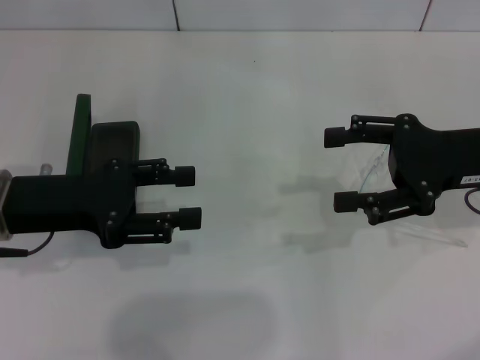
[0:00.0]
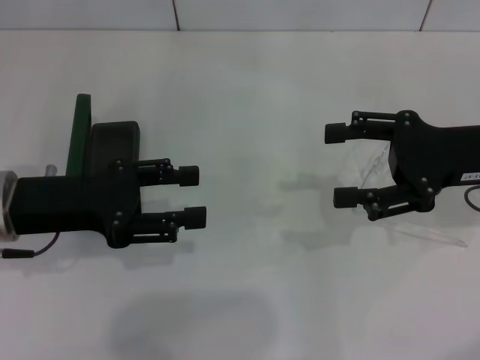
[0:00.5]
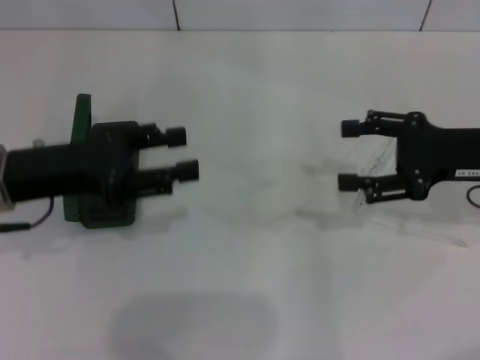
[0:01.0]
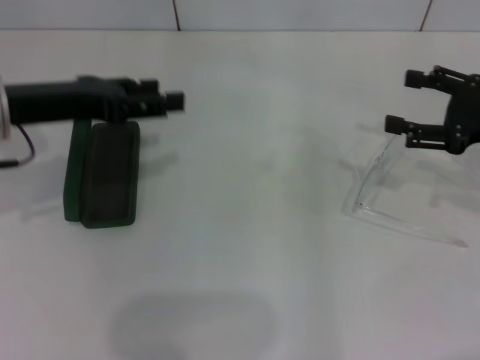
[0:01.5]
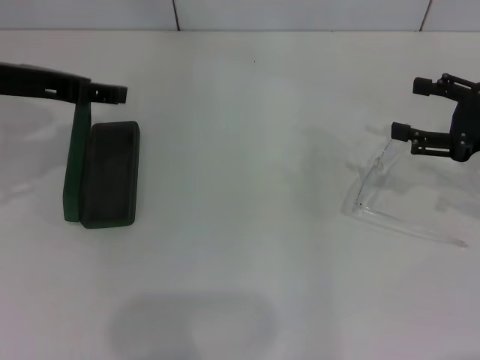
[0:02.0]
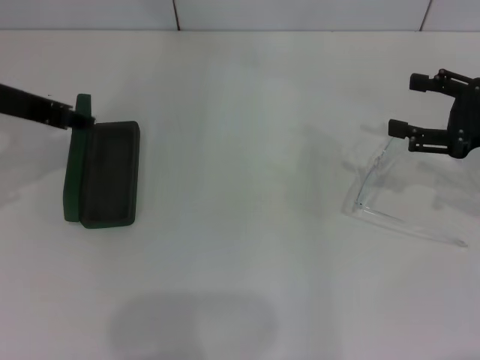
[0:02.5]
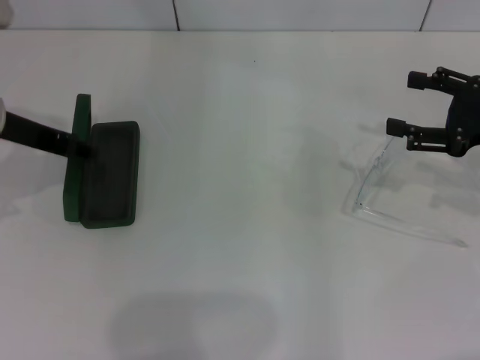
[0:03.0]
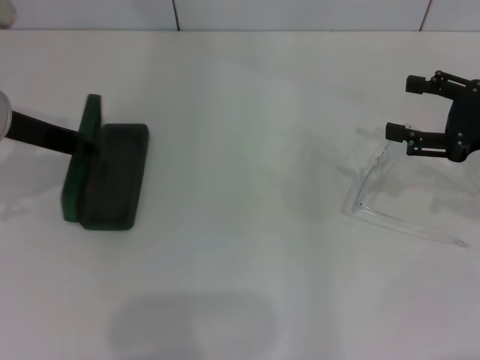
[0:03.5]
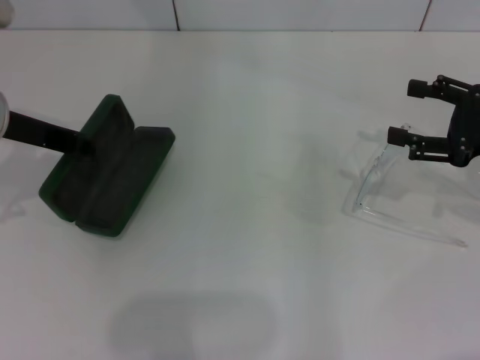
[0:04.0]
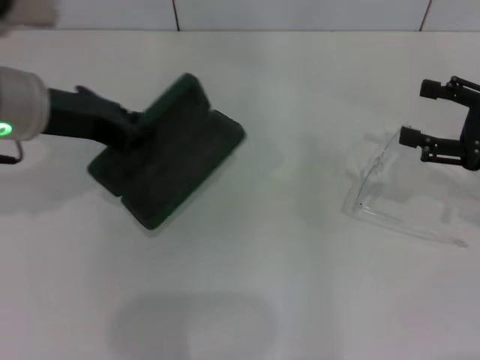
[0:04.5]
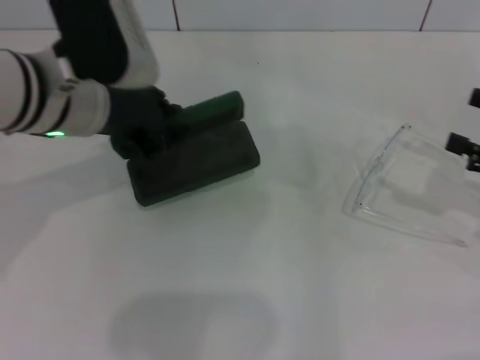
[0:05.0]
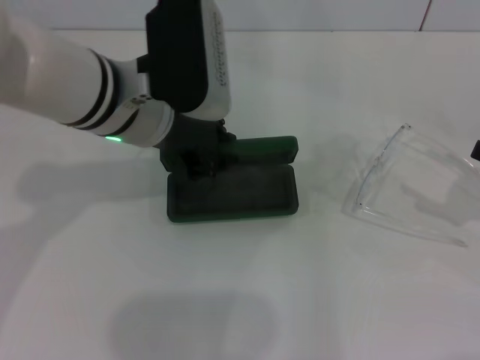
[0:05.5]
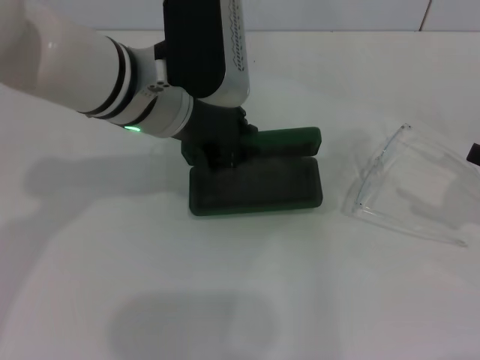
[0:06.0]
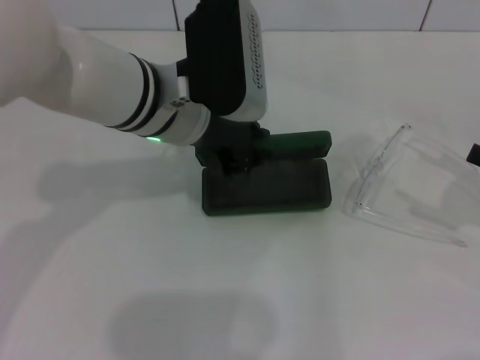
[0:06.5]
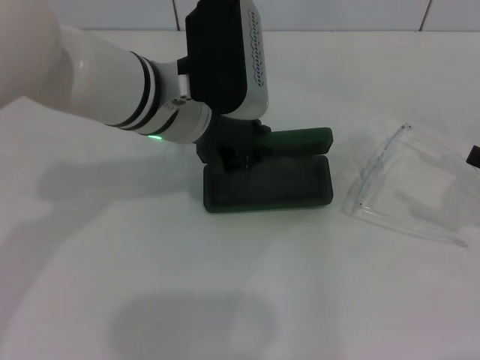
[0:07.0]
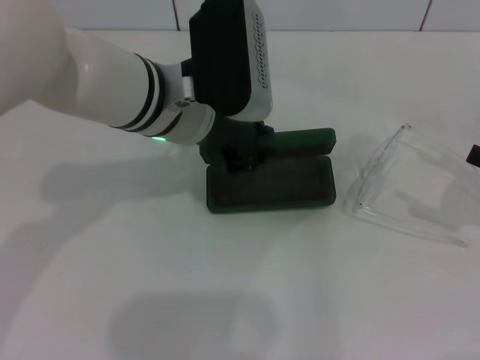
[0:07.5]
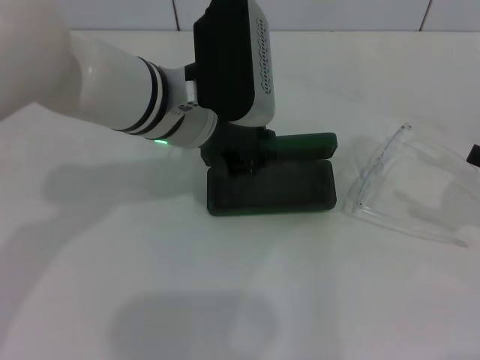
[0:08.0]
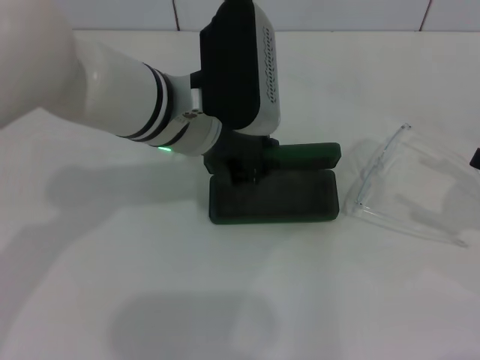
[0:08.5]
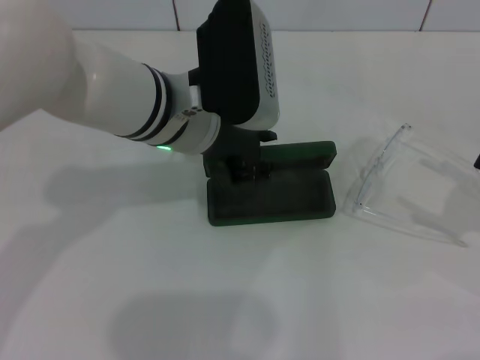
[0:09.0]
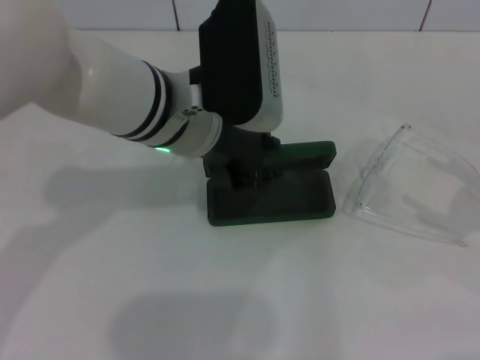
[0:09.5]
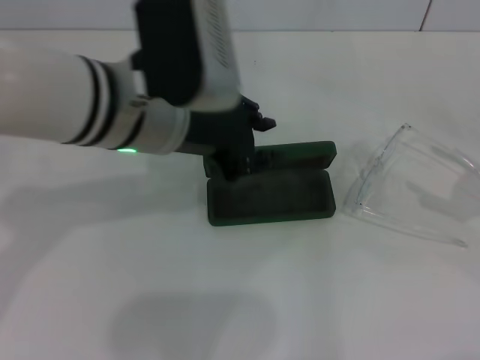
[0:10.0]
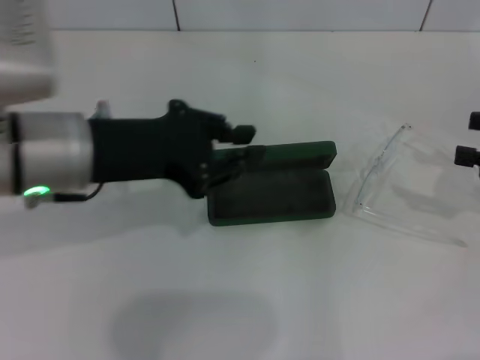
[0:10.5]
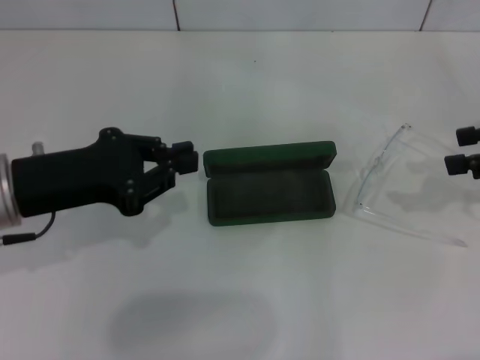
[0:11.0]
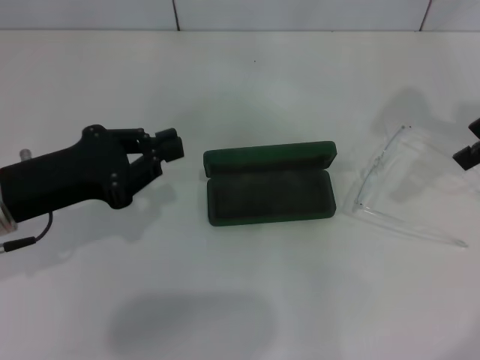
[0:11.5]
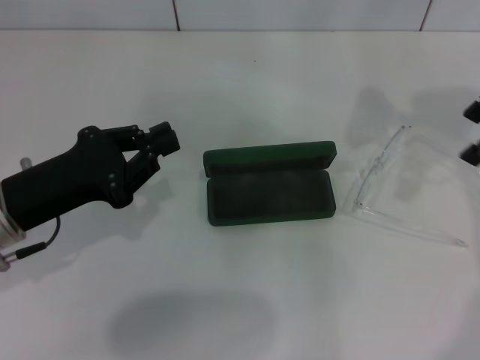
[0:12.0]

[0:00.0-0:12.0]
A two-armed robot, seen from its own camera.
Step, 0:00.0 to 0:03.0: Grab the glasses case with your left hand.
Step, 0:03.5 to 0:08.5: Place the glasses case in the center of the table with your left hand.
0:00.0 to 0:02.0: The left gripper moves upward and forward, approximately 10 cm. The right gripper heads to the right, covering some 5 cm.
0:02.0 to 0:04.0: The left gripper closes.
0:04.0 to 0:06.0: The left gripper is displaced to the right by approximately 15 cm. Meanwhile the right gripper travels backward and to the right by about 10 cm.
0:06.0 to 0:08.0: The grippers stay close to where they were, moving slightly.
0:08.0 to 0:10.0: The left gripper ends up about 5 cm from where it was.
0:10.0 to 0:12.0: The left gripper travels to the left and downward by roughly 20 cm, and closes. Meanwhile the right gripper travels upward, to the left and forward by some 25 cm.

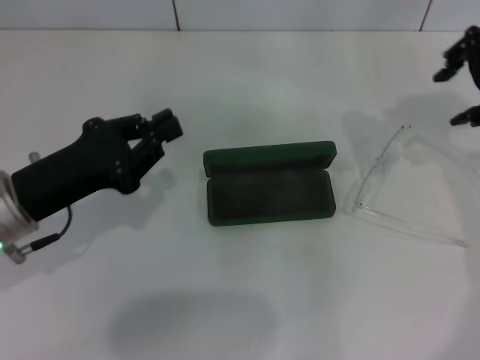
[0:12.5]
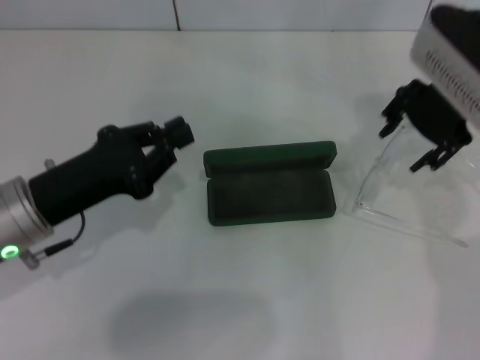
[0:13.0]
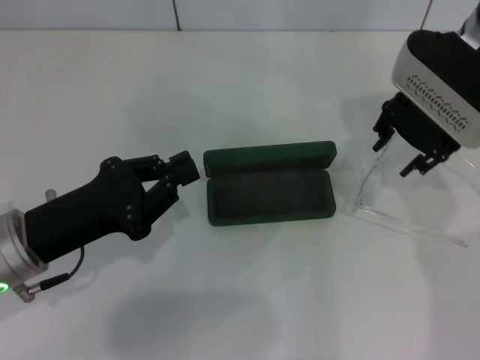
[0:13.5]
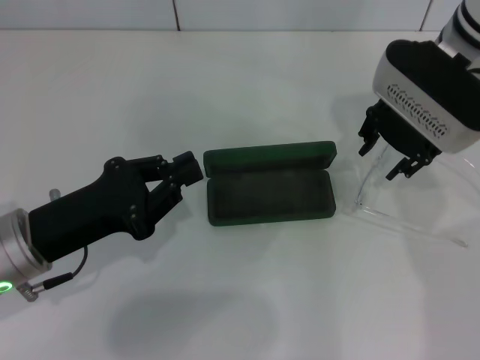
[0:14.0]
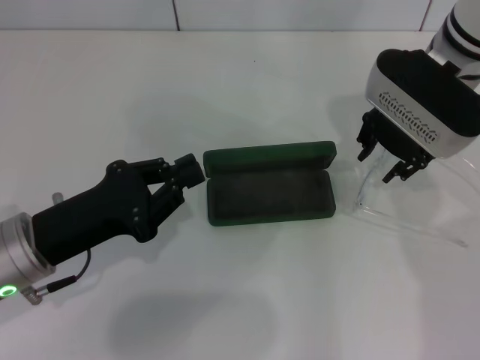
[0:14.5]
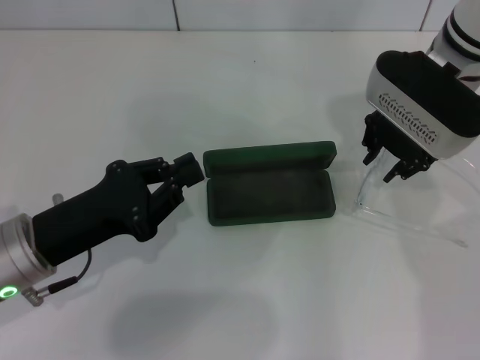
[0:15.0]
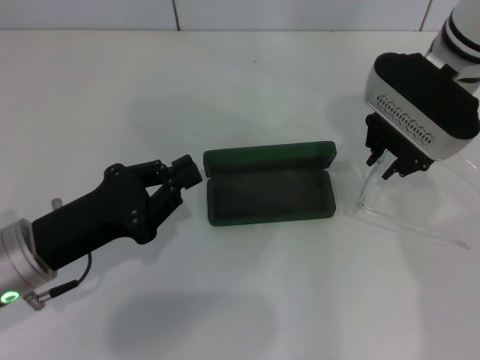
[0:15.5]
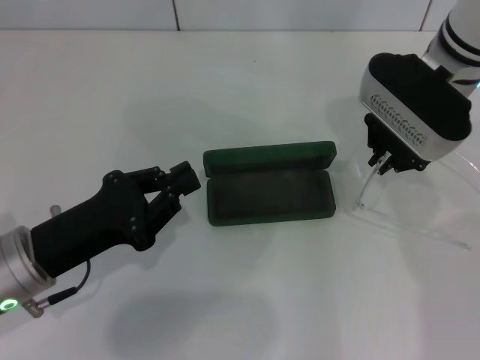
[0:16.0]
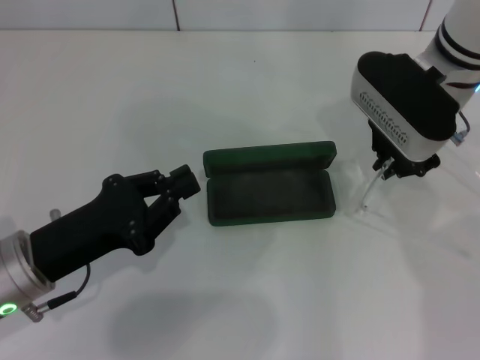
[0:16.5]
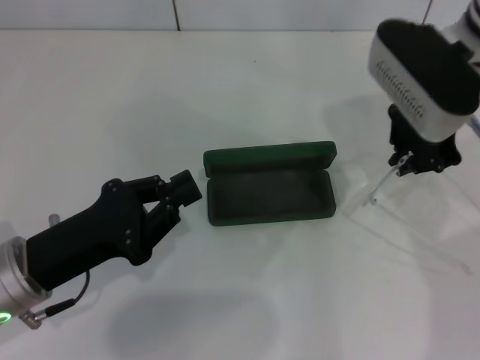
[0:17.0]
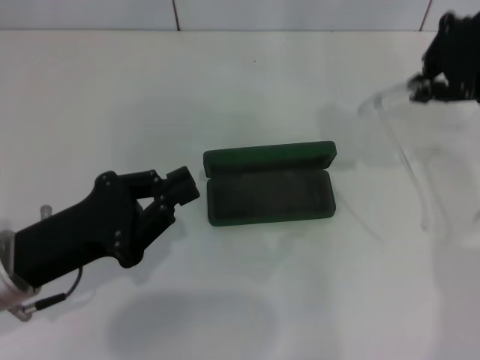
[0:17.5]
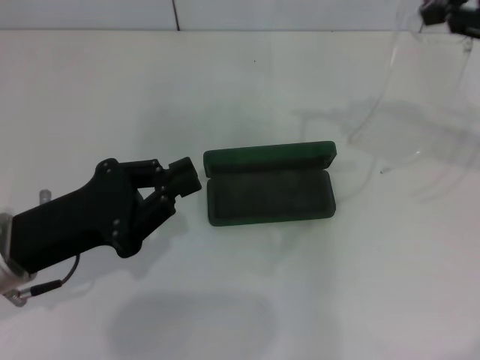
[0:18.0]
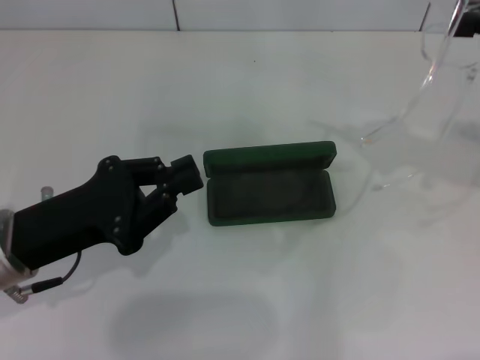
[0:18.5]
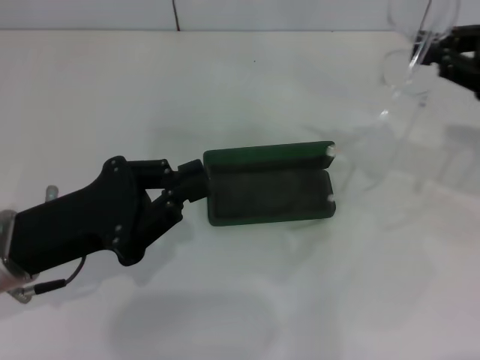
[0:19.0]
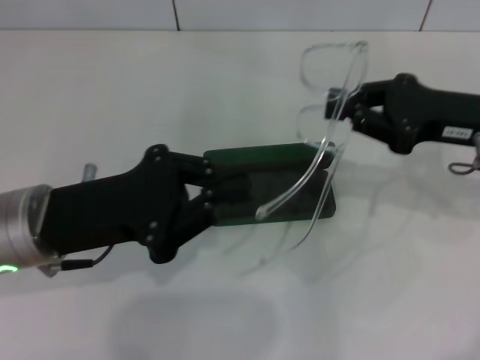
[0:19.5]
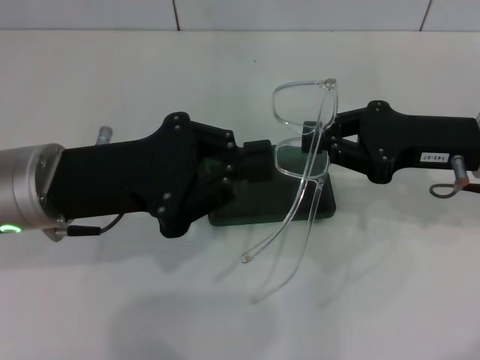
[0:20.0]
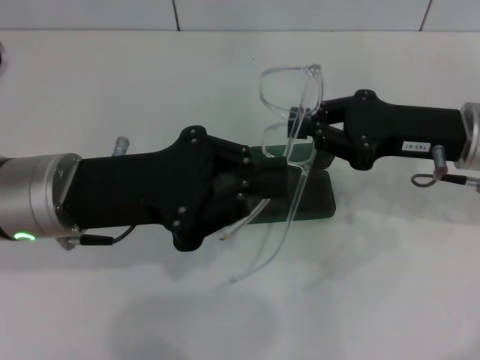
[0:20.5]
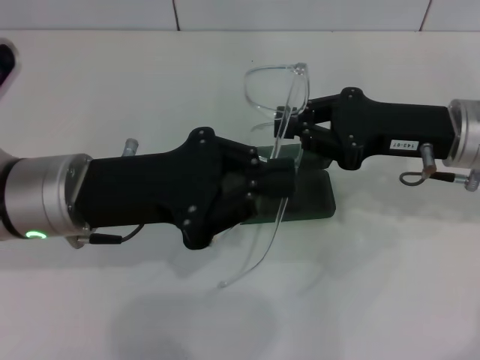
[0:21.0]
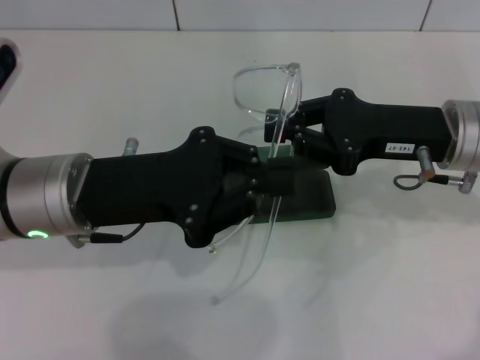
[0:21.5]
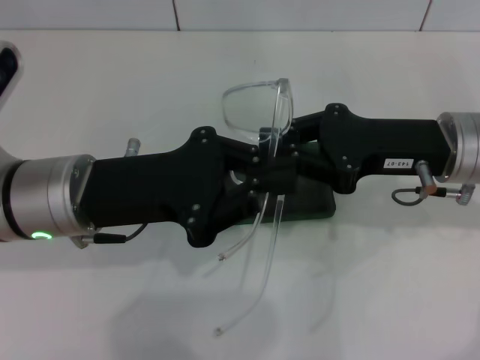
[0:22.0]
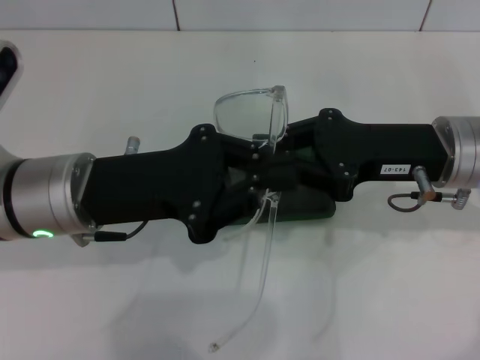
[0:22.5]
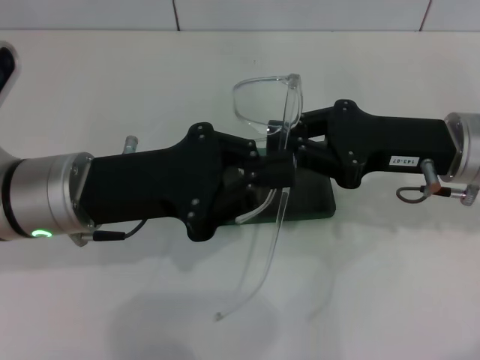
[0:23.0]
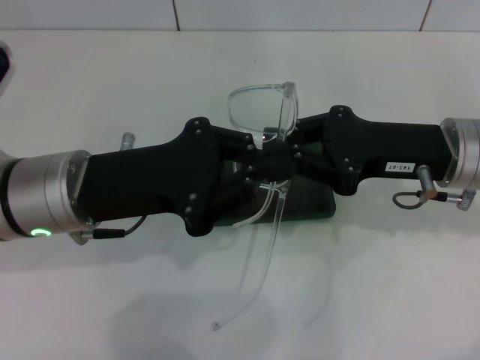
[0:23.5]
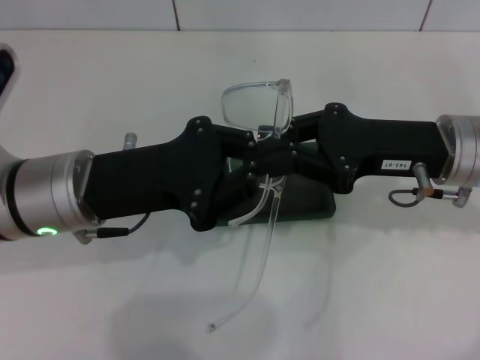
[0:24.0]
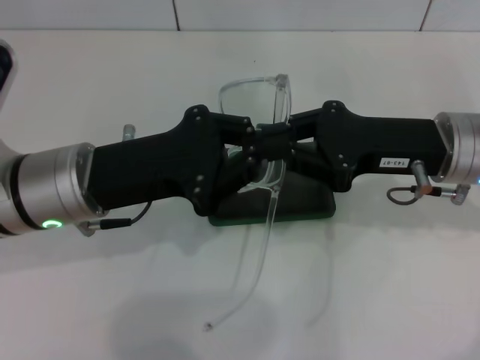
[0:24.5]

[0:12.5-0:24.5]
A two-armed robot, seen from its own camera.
Step, 0:12.5 to 0:16.0: Grab the eyeglass frame with your right hand.
0:12.5 to 0:14.5: The right gripper is displaced to the left and downward by about 10 cm.
0:14.5 to 0:16.5: The right gripper closes its fingers.
0:16.5 to 0:18.5: The right gripper shifts roughly 20 cm to the right, backward and upward.
0:18.5 to 0:20.5: The right gripper moves downward and to the left, some 15 cm. The left gripper moves to the right, roughly 5 cm.
0:20.5 to 0:24.5: The grippers move only a little.

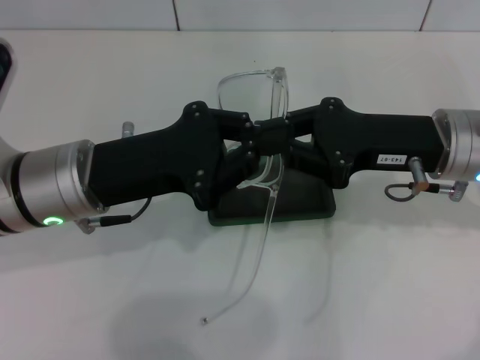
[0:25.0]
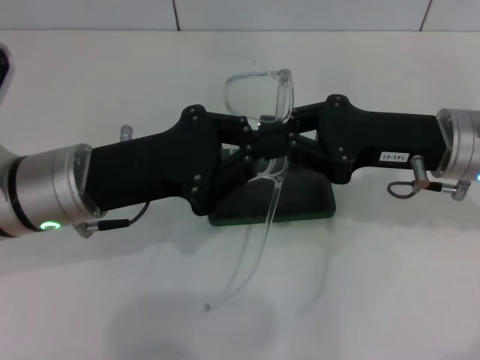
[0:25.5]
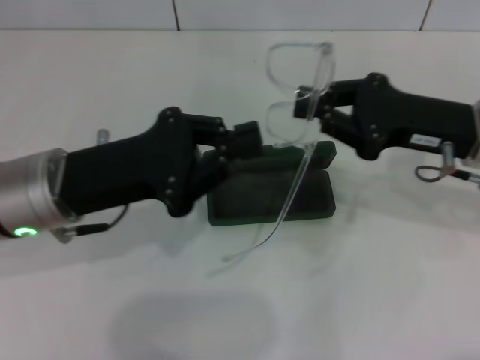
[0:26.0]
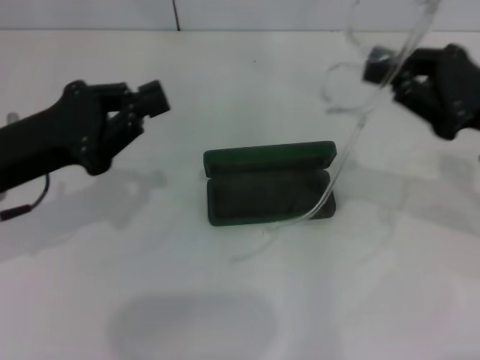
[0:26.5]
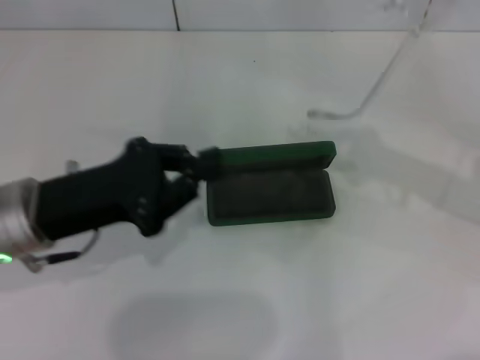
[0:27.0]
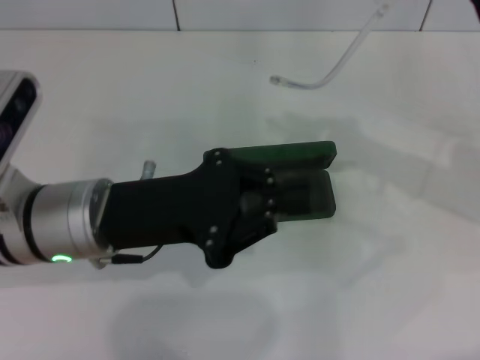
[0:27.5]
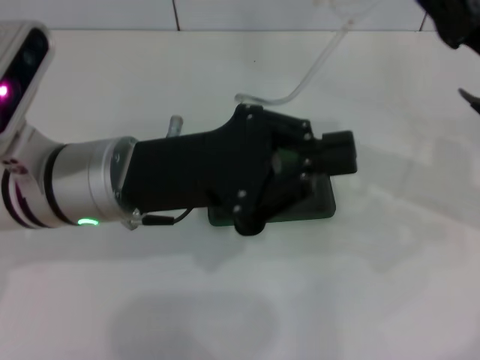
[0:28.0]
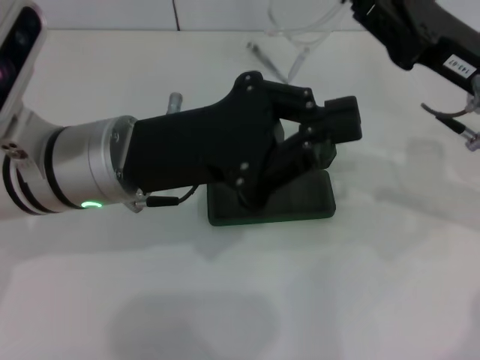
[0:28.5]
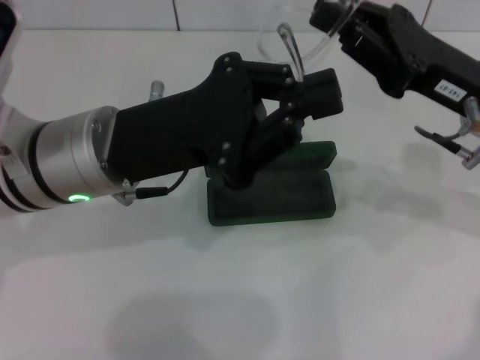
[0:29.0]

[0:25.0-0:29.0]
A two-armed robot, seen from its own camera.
0:25.0 to 0:27.0: The right gripper shifts roughly 10 cm to the right, while the left gripper changes place by approximately 5 cm.
0:27.0 to 0:29.0: The left gripper is displaced to the right by about 10 cm. Meanwhile the right gripper heads to the left, covering approximately 10 cm.
